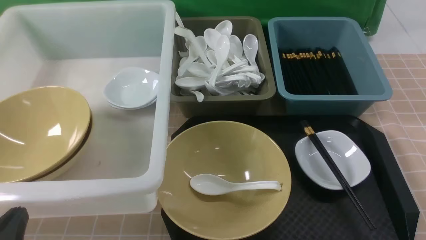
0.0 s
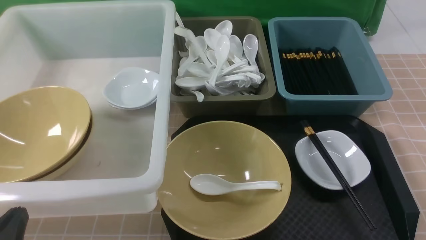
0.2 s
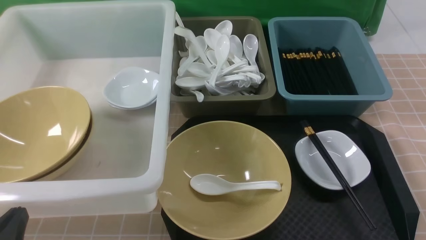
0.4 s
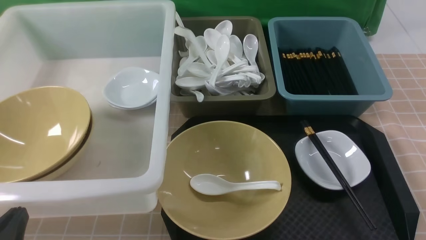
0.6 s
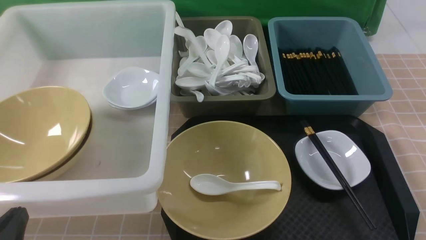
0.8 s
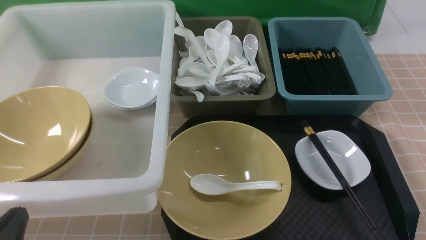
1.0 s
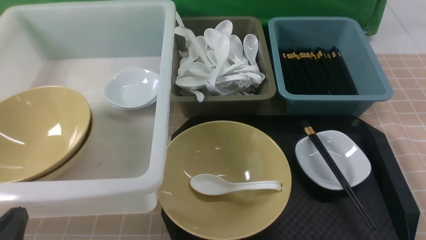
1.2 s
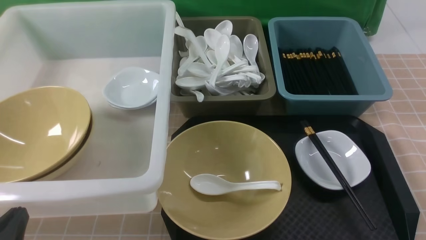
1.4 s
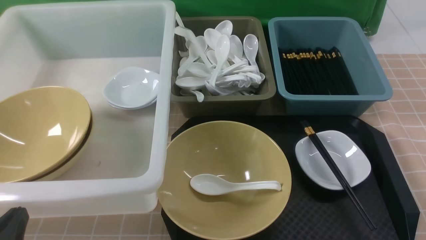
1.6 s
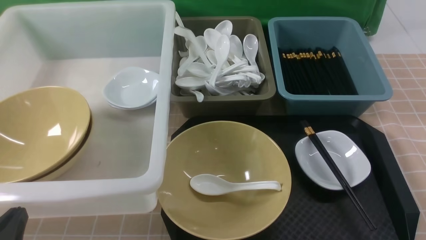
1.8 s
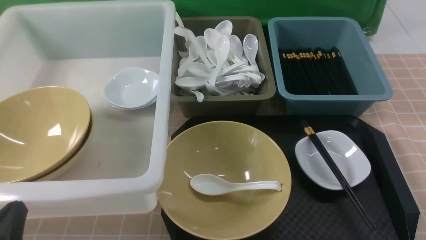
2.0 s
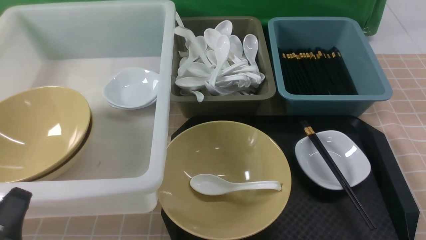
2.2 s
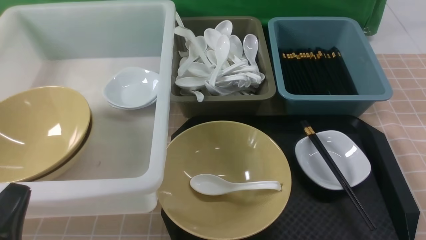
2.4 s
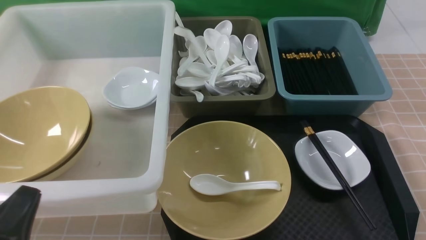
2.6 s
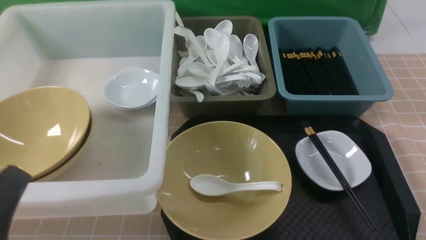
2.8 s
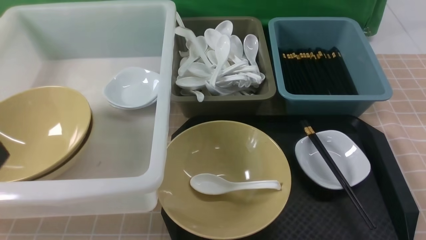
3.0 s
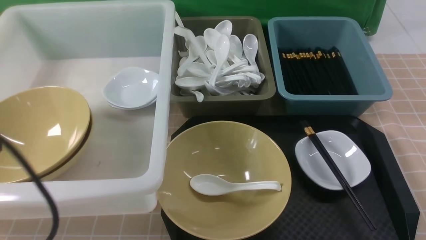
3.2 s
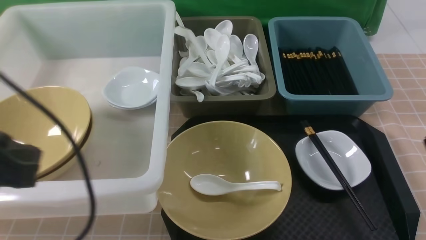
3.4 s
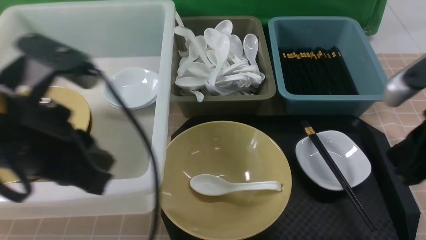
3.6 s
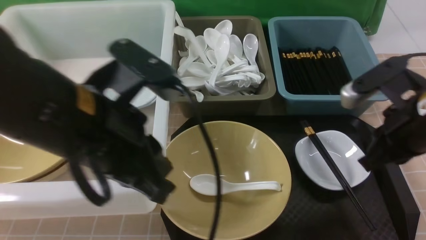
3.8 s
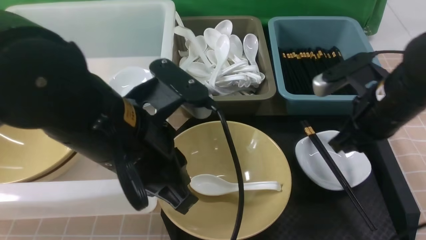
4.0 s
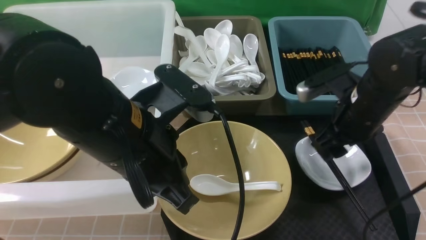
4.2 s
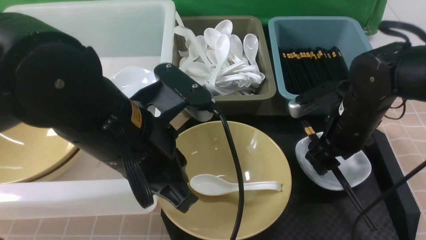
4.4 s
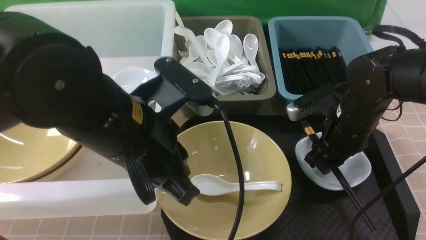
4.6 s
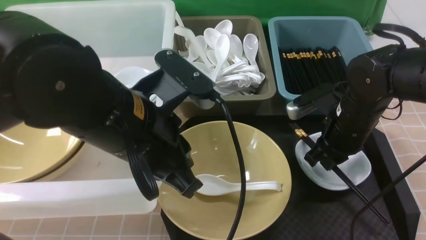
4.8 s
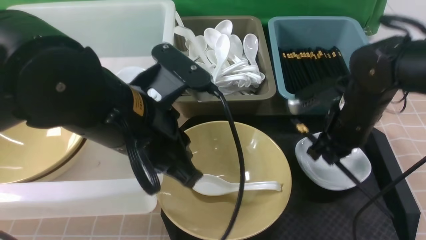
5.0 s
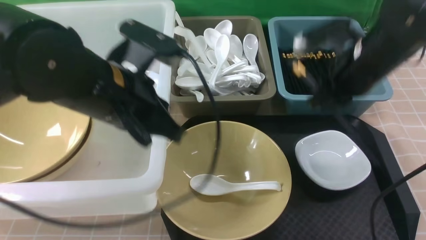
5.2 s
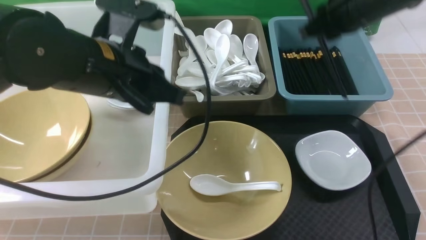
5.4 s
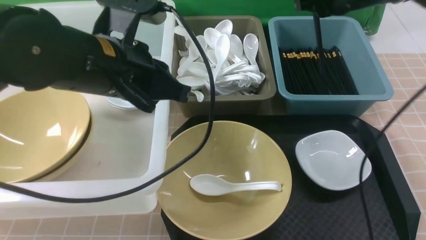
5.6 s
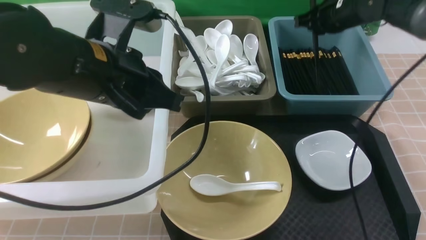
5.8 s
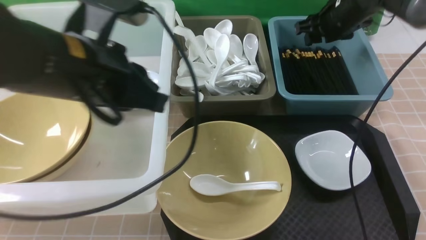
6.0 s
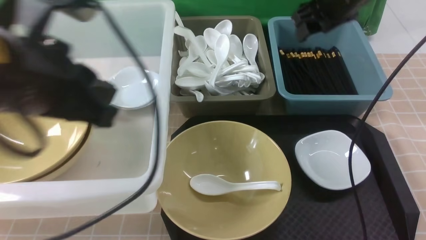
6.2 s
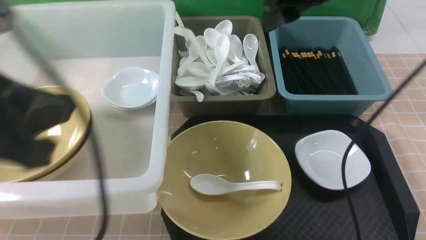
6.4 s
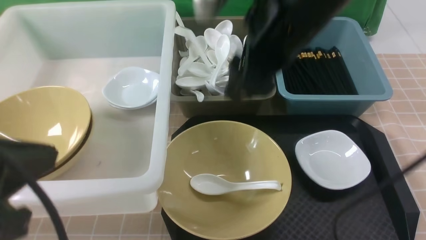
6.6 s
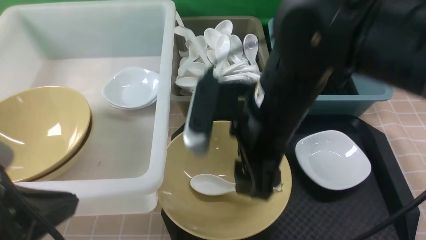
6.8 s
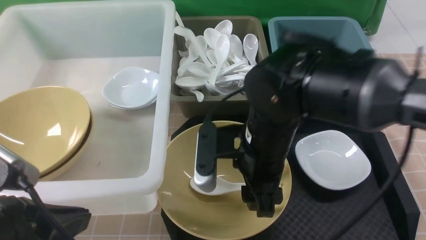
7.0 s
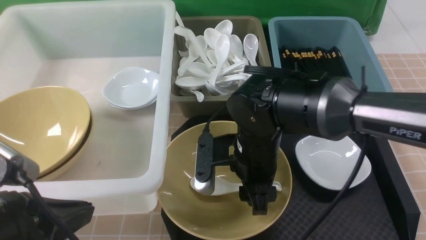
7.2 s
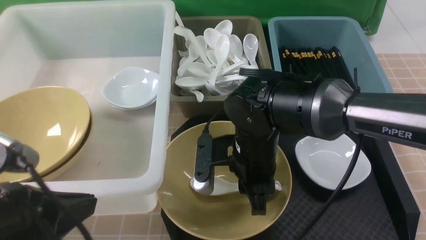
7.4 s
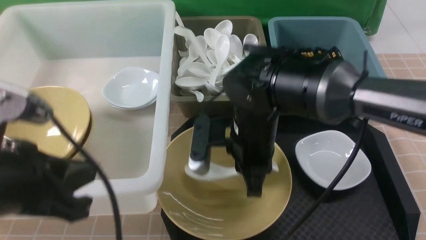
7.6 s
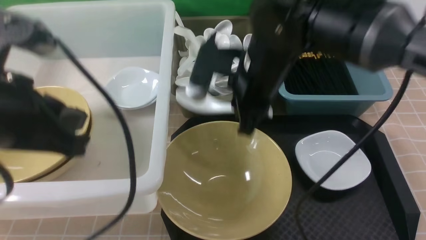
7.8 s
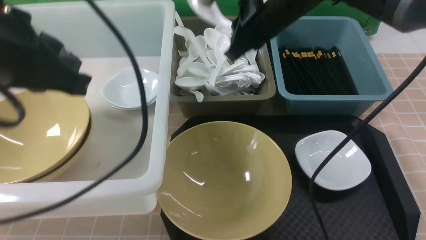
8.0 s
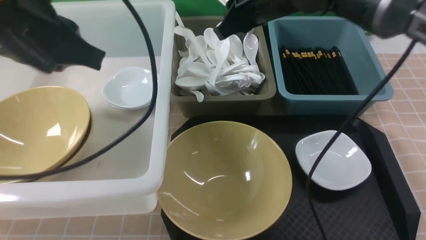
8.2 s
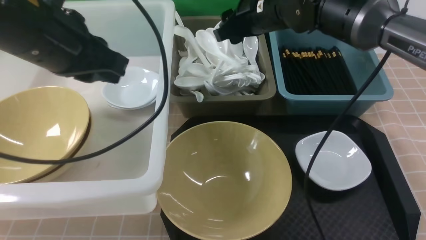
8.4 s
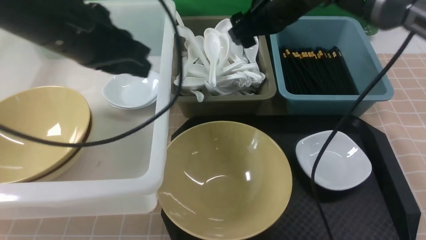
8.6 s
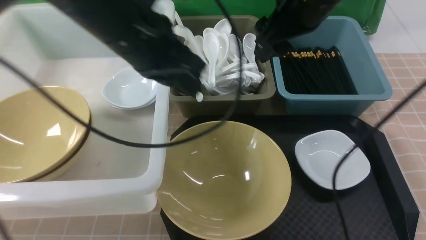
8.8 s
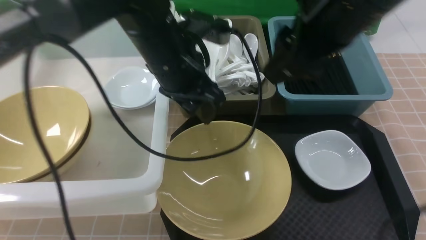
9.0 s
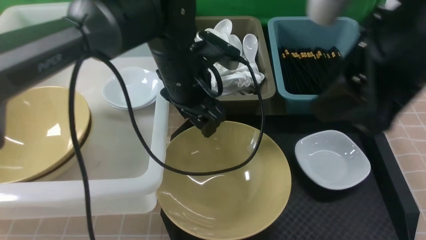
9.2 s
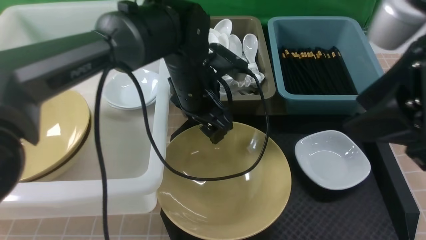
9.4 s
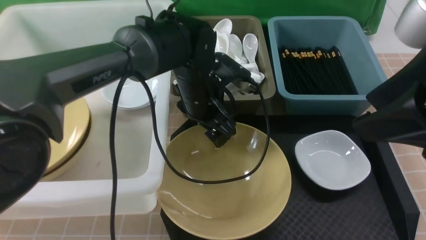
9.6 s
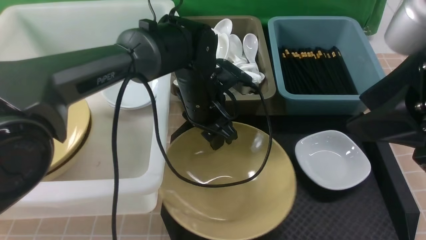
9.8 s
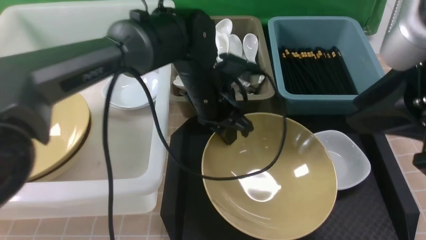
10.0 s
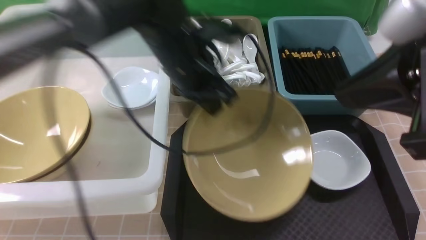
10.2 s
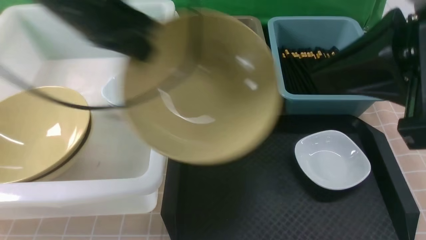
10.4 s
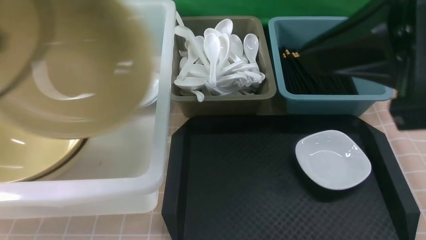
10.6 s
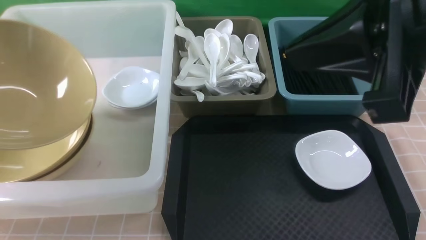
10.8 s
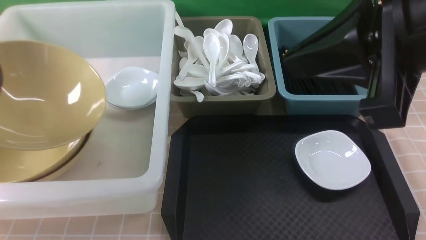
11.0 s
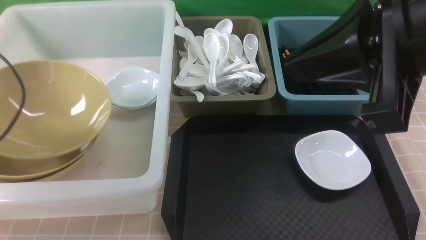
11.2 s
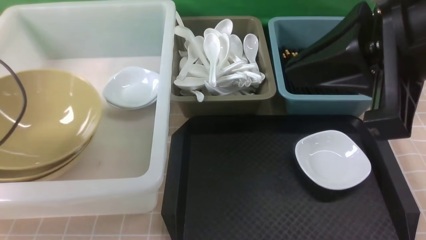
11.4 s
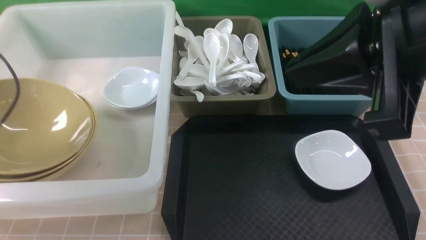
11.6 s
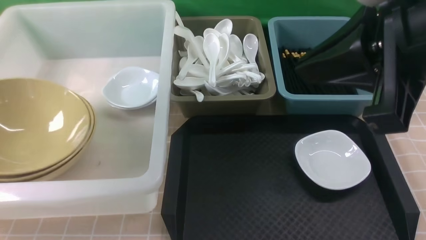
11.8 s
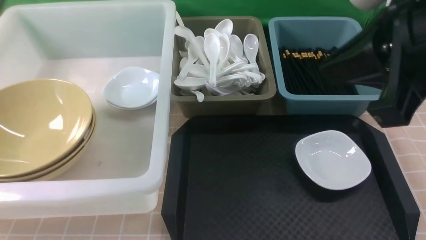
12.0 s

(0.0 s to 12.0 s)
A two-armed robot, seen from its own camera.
Task of the whole recording: on brown table put chopsticks spoon bowls plates into blue grey white boxes.
Step, 0.0 s - 4.8 s: use the right arm to grab the chopsticks.
Step, 5.0 s - 6.2 s: use the right arm to put the chopsticks into the small storage box on the right.
Step, 6.4 s - 7.6 s: use the right arm to grab the soup spoon in the middle.
Step, 7.8 s - 8.6 s: use the right arm to put the soup spoon into the small storage box in the middle.
Step, 8.8 s - 10.0 s: use the left arm to grab the yellow noodle bowl on the left.
1.6 s - 3.0 s: The left gripper goes roughly 15 cm upward.
3.0 s - 4.4 s: The left gripper shifts roughly 20 cm forward and to the right. Meanwhile the right gripper moves forward, roughly 25 cm, and opens.
4.4 s - 6.0 s: The right gripper goes roughly 20 cm forward and upward, and closes, then opens again. The left gripper travels to the left by some 5 cm.
6.0 s - 7.6 s: The right gripper heads backward and to the left, covering about 25 cm, and opens, then closes once more; the left gripper moves backward and to the left, approximately 15 cm.
7.6 s - 9.0 s: The left gripper heads forward and to the right, covering some 25 cm, and opens up. Meanwhile the right gripper shifts some 20 cm upward and to the right, and opens up.
9.0 s - 10.4 s: The left gripper travels to the left by about 5 cm, travels downward and back again, approximately 10 cm each way, and closes, while the right gripper travels backward by approximately 15 cm, and closes.
10.4 s - 12.0 s: The left gripper travels to the left by approximately 20 cm, and opens up.

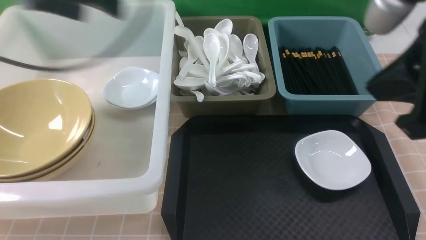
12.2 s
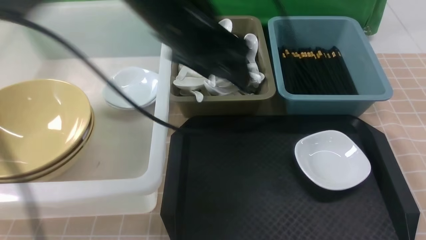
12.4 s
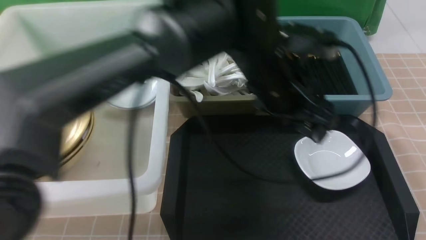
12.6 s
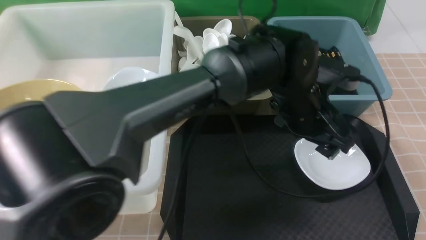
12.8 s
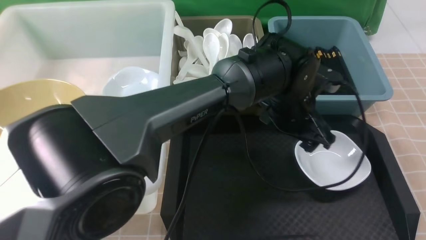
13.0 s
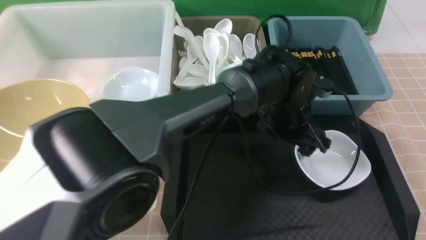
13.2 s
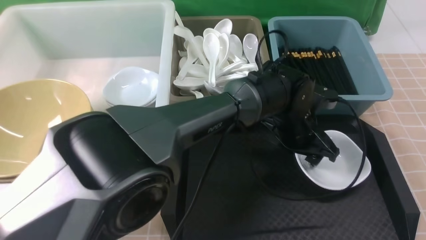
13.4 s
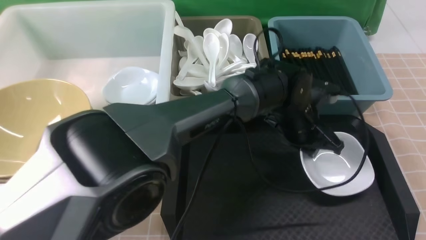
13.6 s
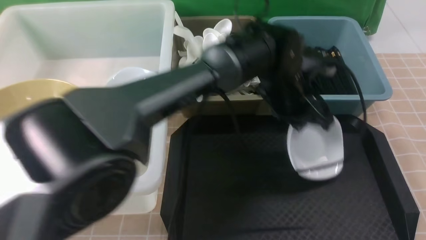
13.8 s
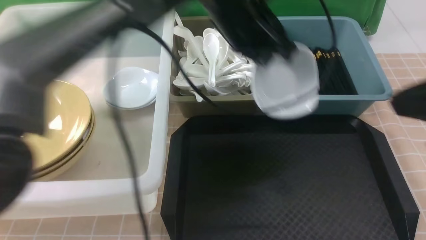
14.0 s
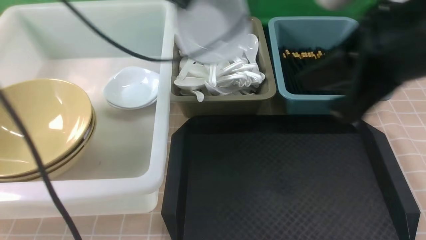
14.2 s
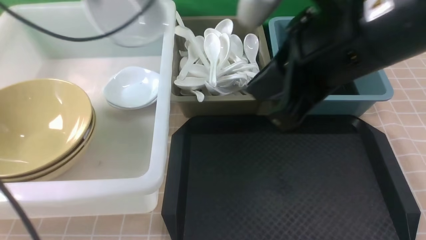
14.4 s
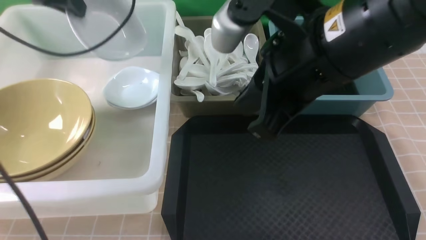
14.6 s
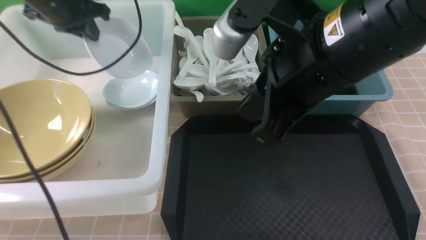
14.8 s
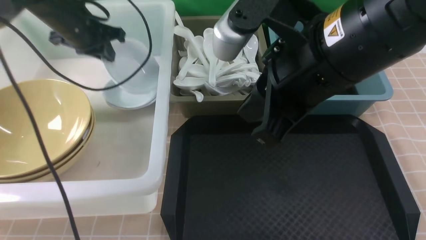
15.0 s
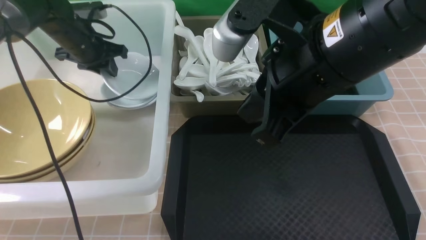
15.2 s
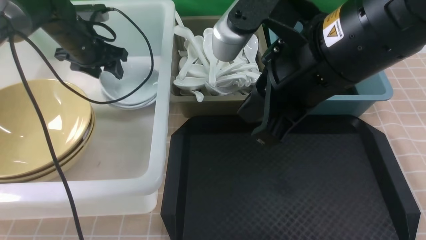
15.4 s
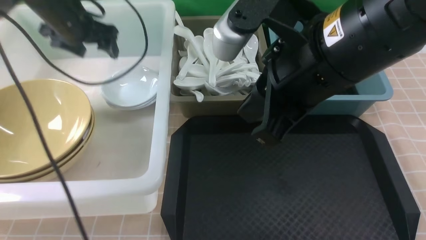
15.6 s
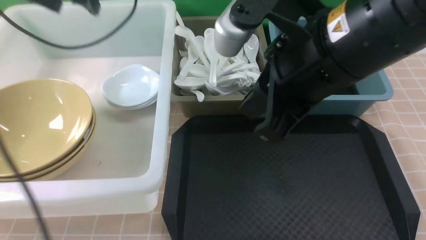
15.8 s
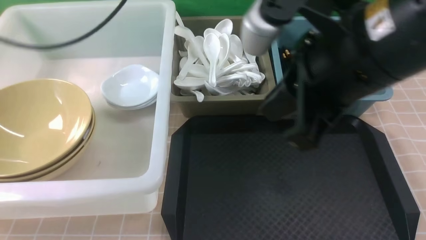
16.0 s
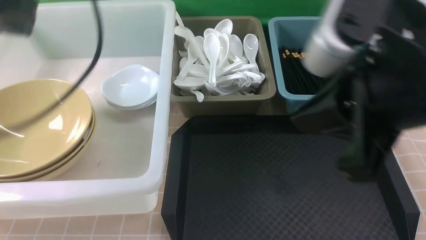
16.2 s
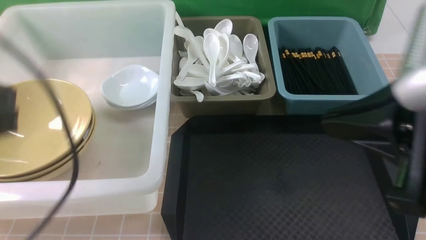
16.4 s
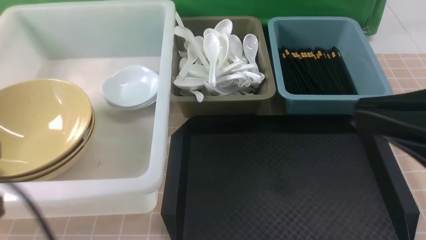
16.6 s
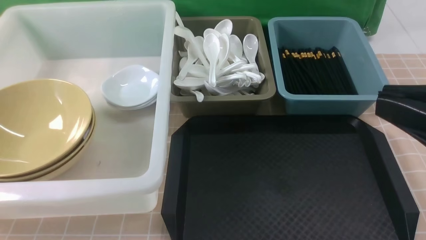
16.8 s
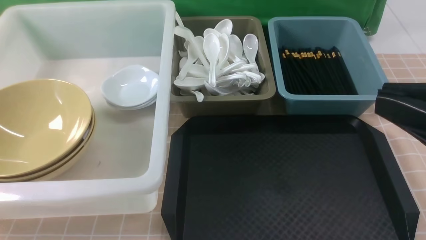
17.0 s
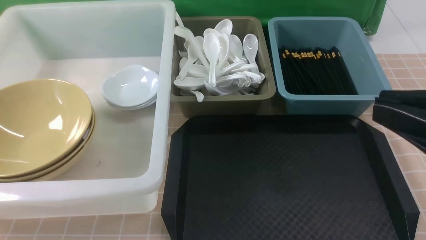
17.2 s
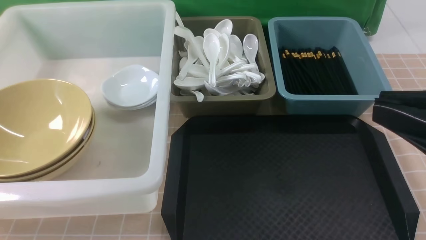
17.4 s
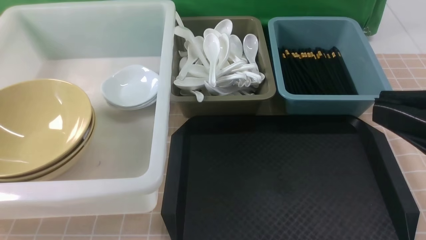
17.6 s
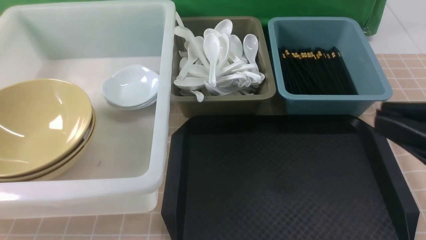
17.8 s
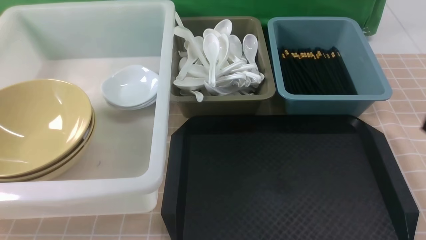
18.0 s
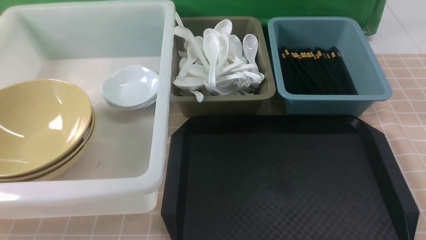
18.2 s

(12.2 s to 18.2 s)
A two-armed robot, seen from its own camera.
Task of the whole recording: on brown table put chopsticks spoon bowls plates into blue grey white boxes.
Step, 12.4 s - 13.8 s: use the left arm to grab the plate.
Step, 14.0 s - 15.6 s: use the left arm to put the plate into the large storage box on the left.
12.2 s - 13.8 s: The right gripper shifts some 10 cm to the right and backward, while the left gripper moves to the right and downward, approximately 40 cm, and closes up.
13.8 s - 15.2 s: The right gripper shifts some 20 cm to the left and forward. Meanwhile the left gripper goes roughly 35 cm to the left.
15.2 s - 16.6 s: The left gripper moves backward, approximately 40 cm, and opens, then closes once more. Meanwhile the right gripper shifts about 15 cm to the right and backward.
16.6 s - 18.2 s: The left gripper goes roughly 10 cm backward and downward. The right gripper moves downward and to the right, approximately 10 cm.
